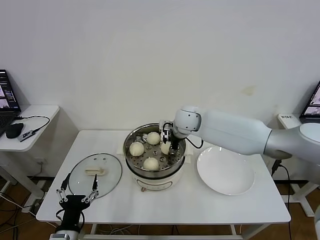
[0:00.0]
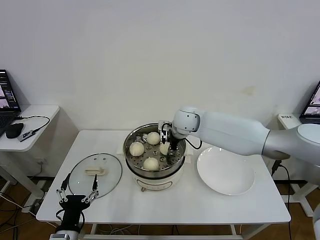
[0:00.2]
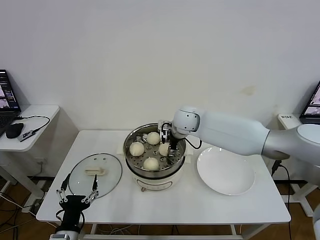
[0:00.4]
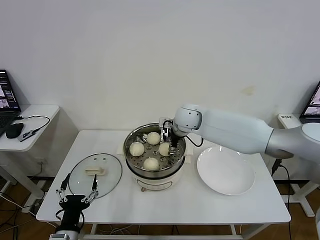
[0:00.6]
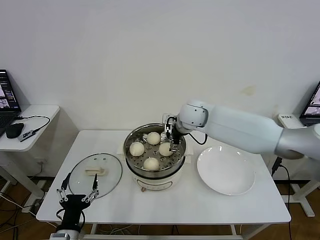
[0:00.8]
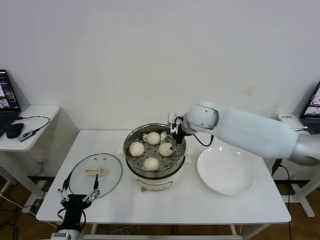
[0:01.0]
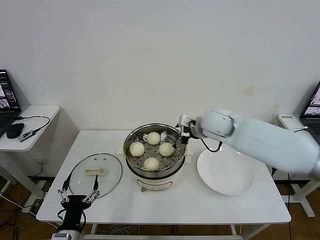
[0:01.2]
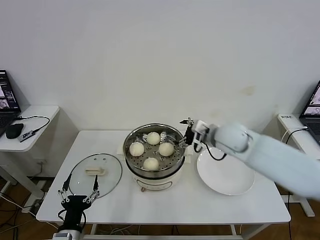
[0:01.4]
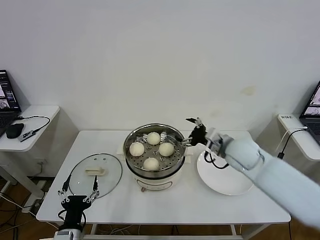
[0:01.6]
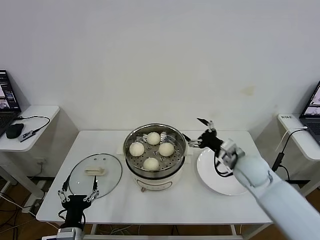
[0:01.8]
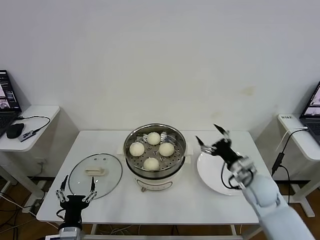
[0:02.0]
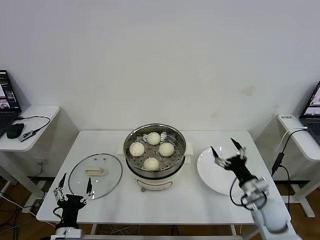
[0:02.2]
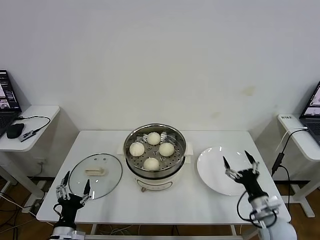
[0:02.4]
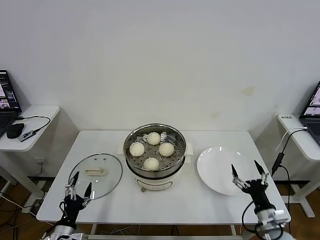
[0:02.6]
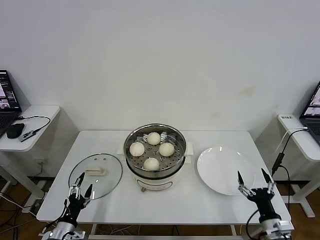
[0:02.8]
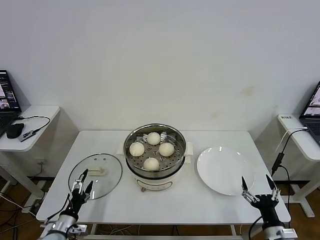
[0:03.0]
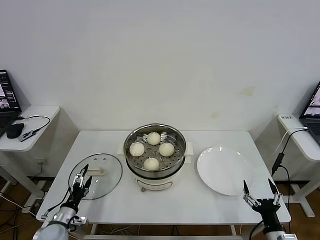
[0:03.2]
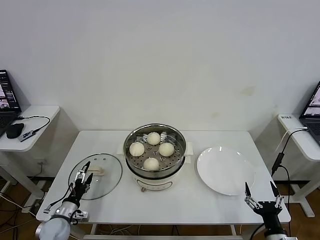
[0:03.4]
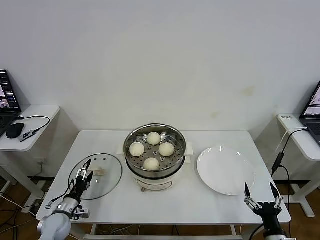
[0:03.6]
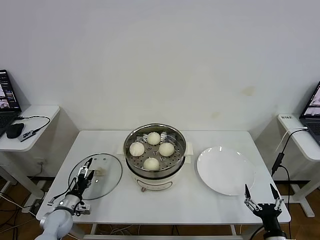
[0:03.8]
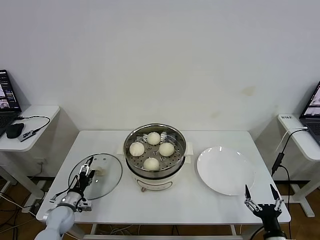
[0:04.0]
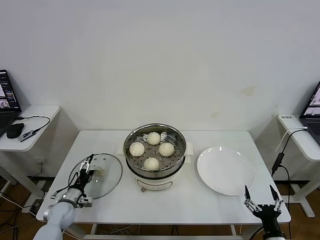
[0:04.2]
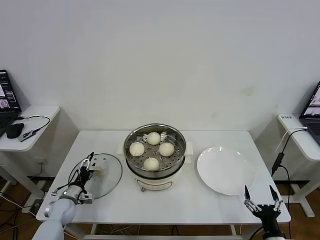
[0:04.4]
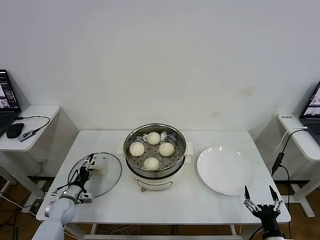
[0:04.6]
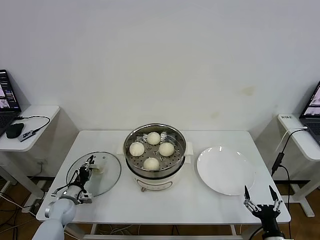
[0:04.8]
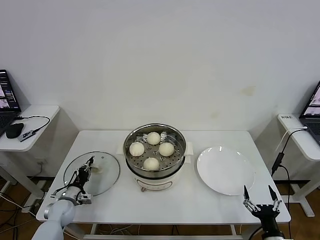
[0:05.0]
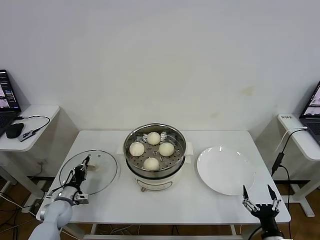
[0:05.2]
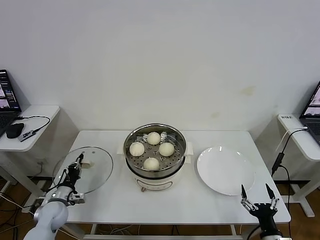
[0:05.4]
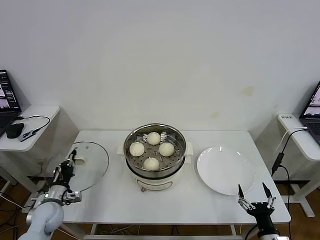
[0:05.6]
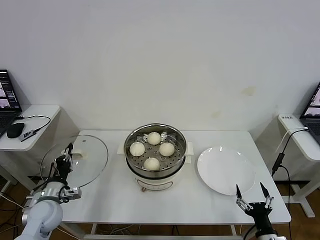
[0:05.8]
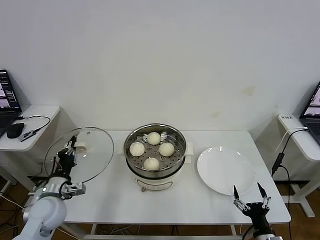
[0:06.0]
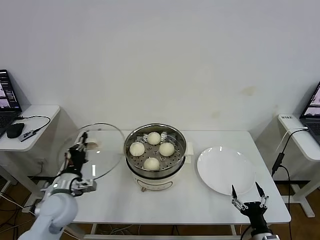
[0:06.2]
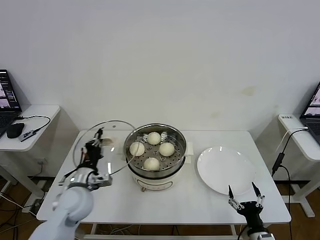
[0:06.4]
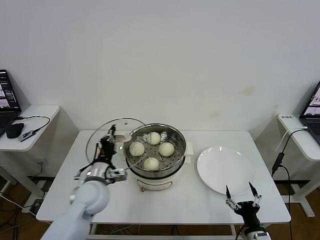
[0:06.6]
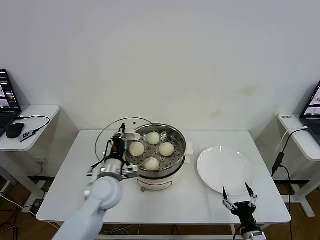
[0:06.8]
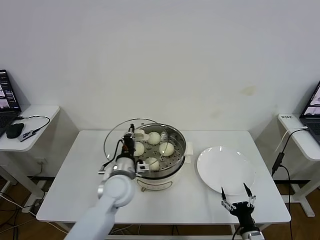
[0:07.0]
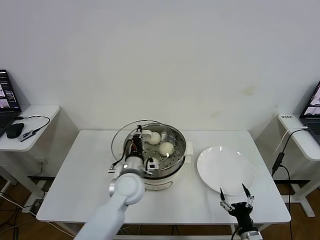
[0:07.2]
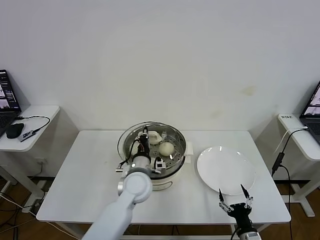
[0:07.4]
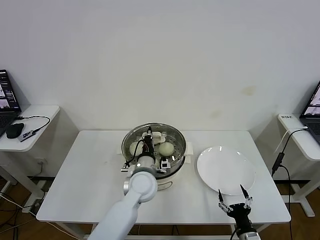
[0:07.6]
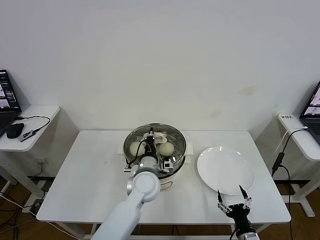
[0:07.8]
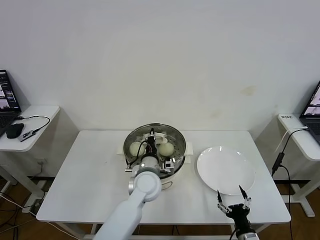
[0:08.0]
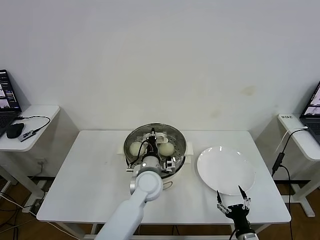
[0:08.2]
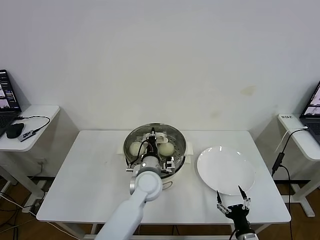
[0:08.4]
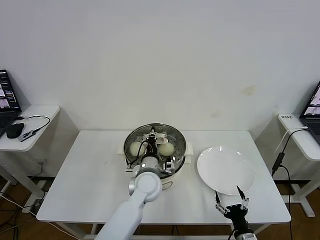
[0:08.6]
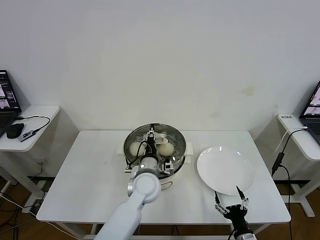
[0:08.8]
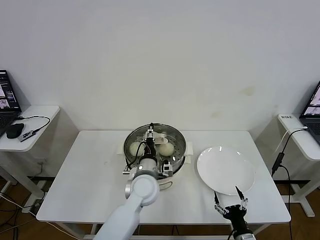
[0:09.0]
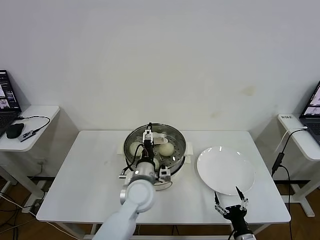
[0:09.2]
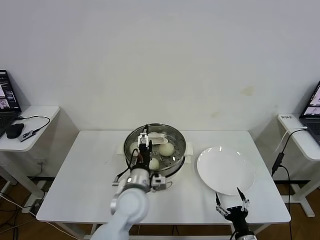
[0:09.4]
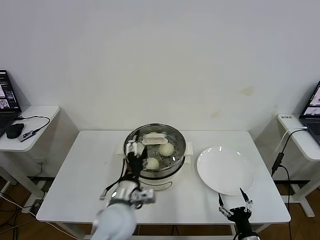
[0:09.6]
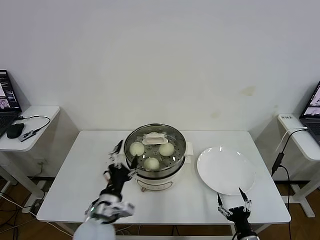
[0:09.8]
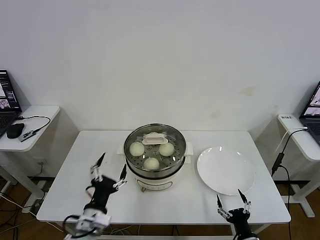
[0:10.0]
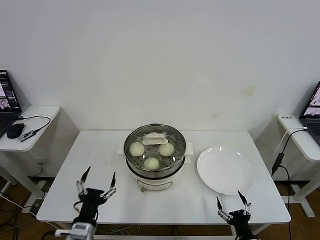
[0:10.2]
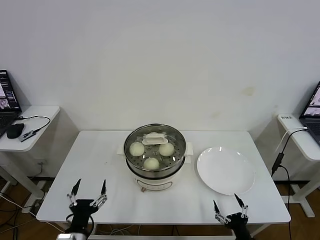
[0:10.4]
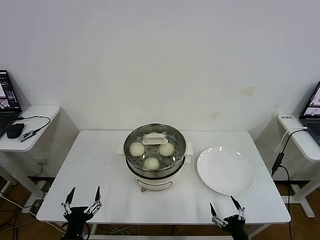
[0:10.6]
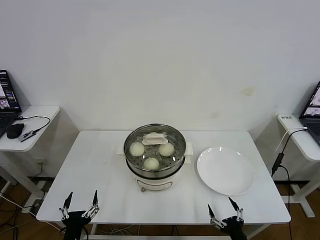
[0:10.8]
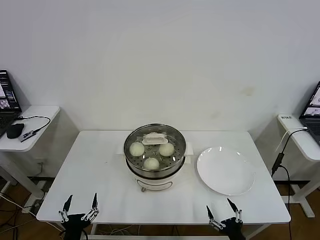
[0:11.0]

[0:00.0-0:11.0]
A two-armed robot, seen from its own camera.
Task of the whole recording: take steamed baozi put them in steamer then cover it.
Step, 0:00.6 to 0:05.2: Grasp the pot lid with left gripper.
Step, 0:05.4 to 0:08.6: Place the pot lid on the steamer with left gripper.
0:00.0 to 0:01.6: The right gripper shifts some 20 cm to the right and backward, and opens.
0:01.6 to 0:03.2: The left gripper heads to the left, forward and downward, covering some 15 cm. The right gripper shifts about 35 cm backward, downward and to the right.
0:03.2 to 0:04.8: The left gripper goes approximately 10 cm forward, and closes up.
0:04.8 to 0:06.2: The left gripper shifts roughly 20 cm upward and to the right, and closes up.
0:06.2 to 0:07.8: The left gripper heads to the right, covering about 25 cm.
0:07.8 to 0:09.4: The left gripper goes roughly 5 cm backward, and opens its fingers.
0:09.4 to 0:11.0: The left gripper heads backward, to the left and downward, covering about 30 cm.
